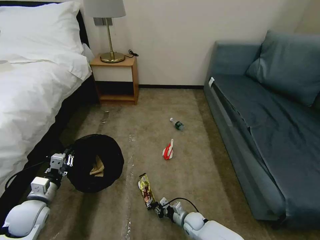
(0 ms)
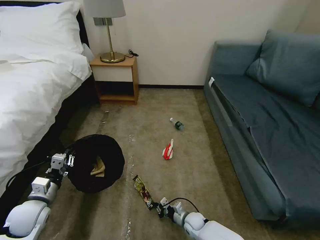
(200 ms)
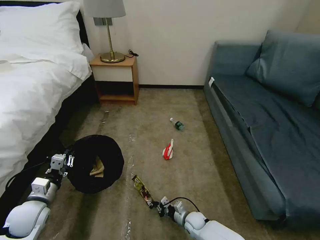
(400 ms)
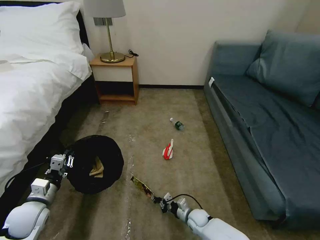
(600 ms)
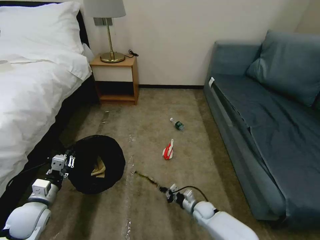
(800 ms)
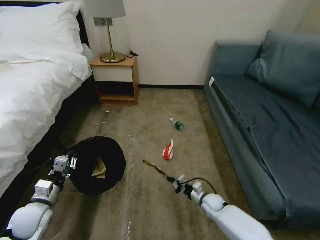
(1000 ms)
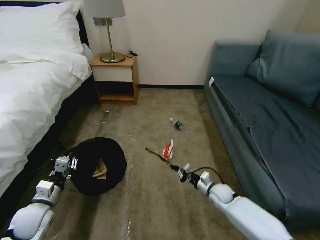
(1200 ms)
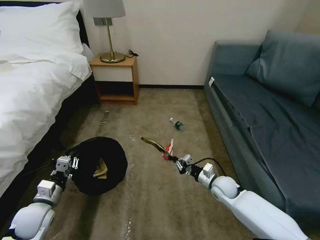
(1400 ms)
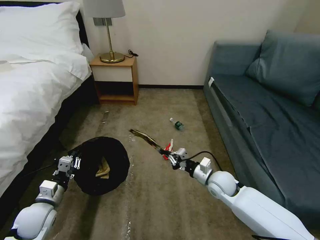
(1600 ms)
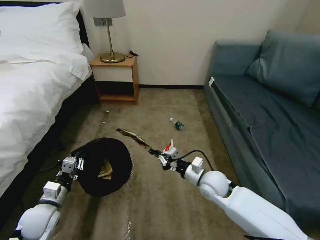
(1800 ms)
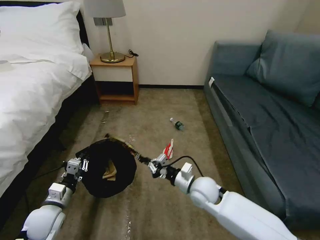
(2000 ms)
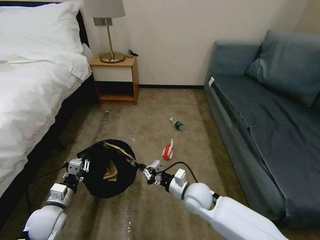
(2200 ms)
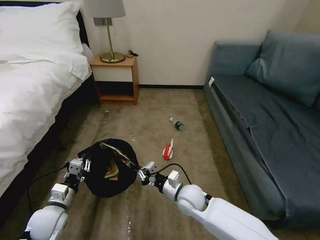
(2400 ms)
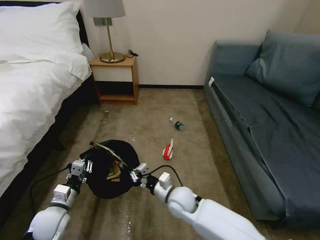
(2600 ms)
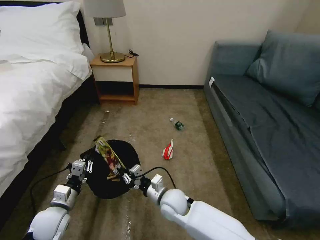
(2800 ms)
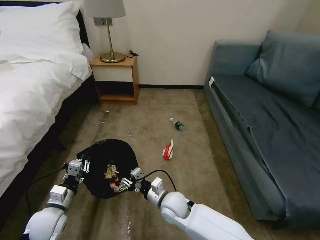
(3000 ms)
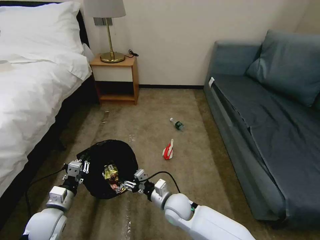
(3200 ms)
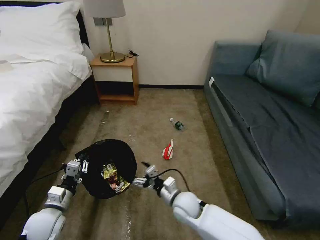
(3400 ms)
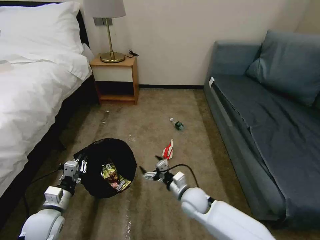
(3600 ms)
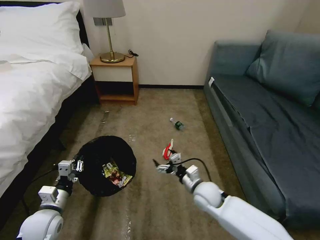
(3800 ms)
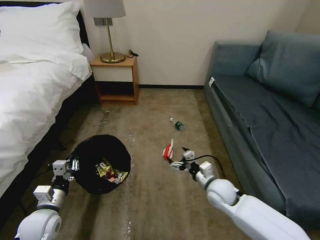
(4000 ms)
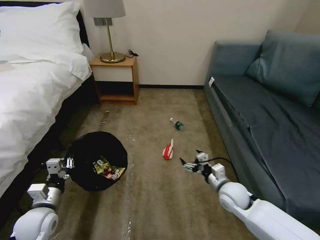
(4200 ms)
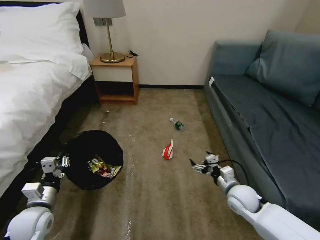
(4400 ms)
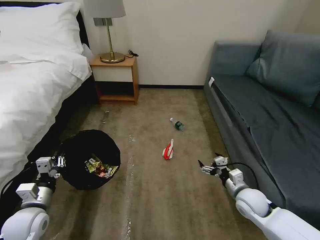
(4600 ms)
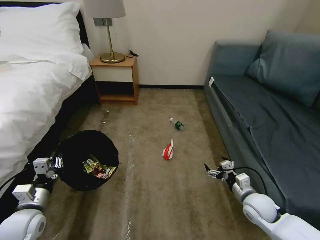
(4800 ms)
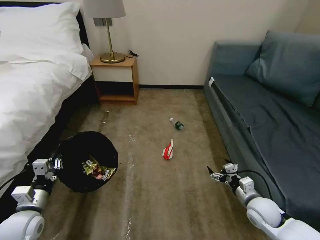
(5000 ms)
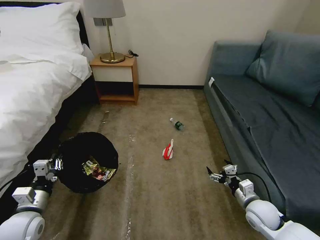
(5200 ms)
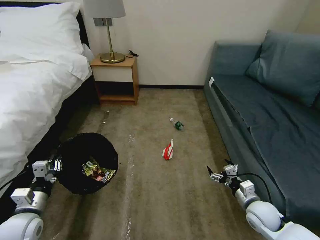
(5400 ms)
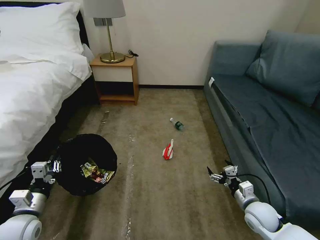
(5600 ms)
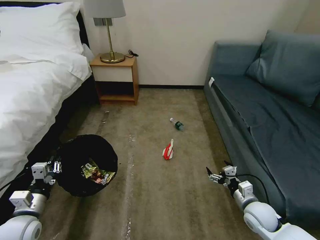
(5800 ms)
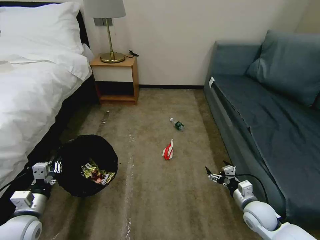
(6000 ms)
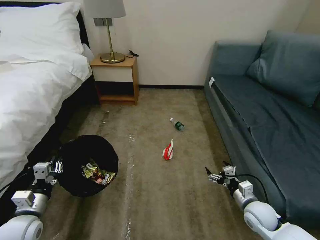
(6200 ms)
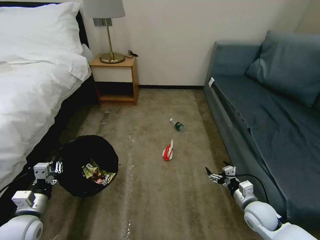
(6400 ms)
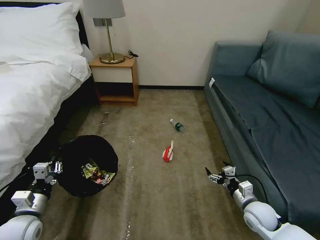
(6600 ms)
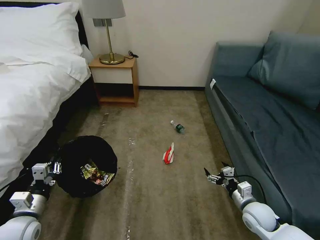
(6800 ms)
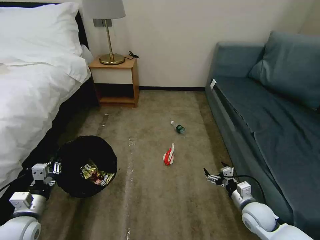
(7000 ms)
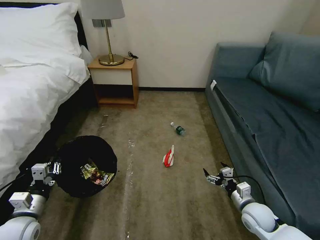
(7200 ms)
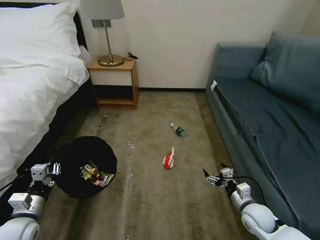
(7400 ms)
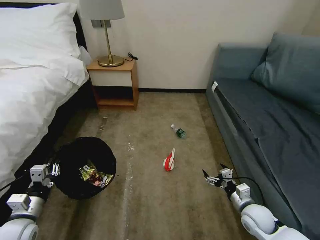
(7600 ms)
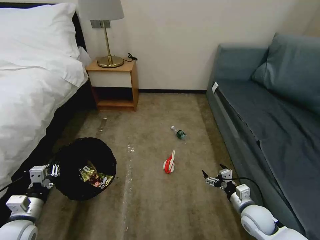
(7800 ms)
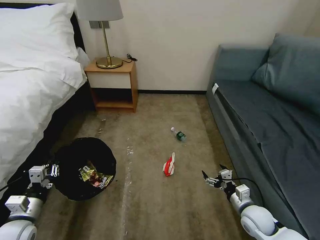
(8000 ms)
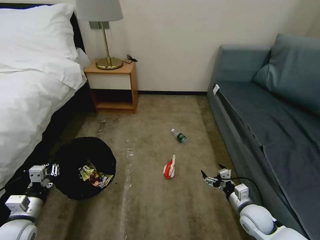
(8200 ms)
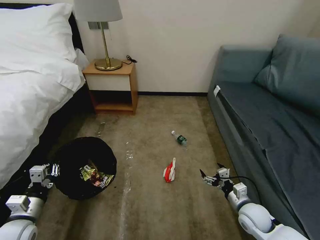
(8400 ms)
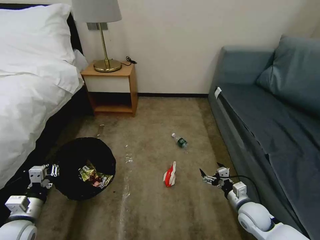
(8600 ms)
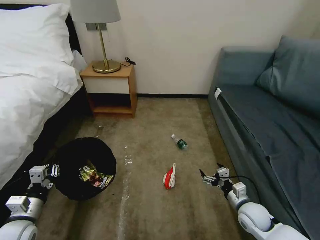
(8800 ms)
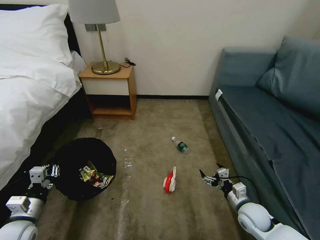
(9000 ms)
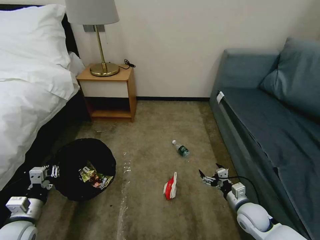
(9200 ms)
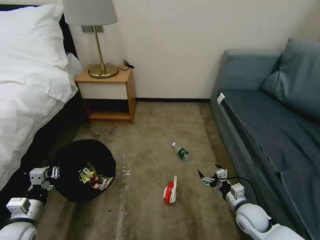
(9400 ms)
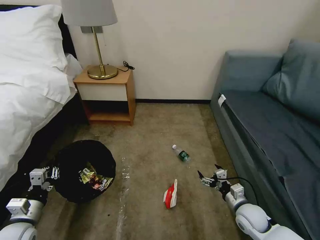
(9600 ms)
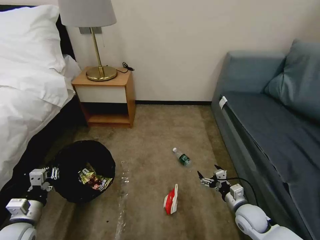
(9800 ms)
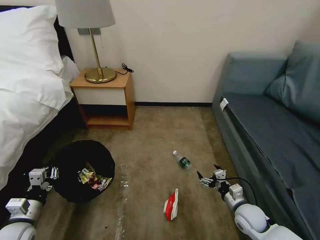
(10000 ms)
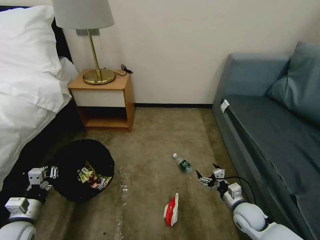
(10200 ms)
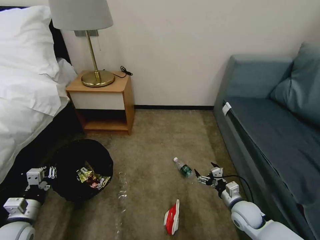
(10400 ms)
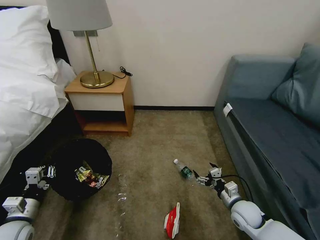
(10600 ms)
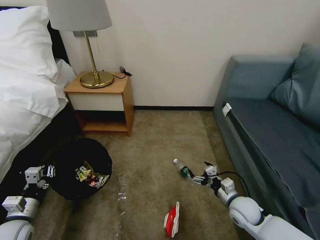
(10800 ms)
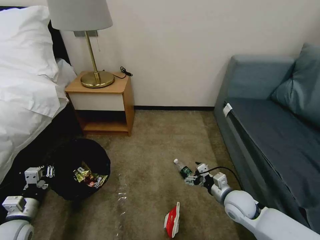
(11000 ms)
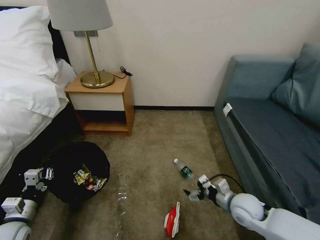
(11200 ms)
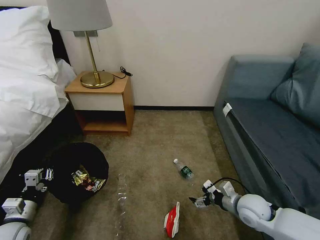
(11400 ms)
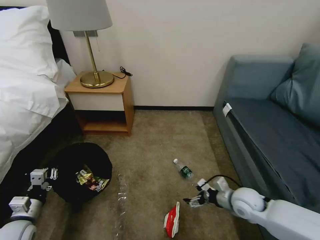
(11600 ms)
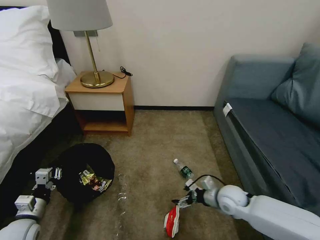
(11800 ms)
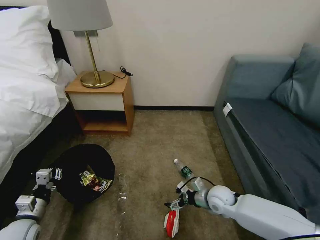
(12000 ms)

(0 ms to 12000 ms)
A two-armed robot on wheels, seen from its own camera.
Task of the whole recording: Pick up the trash bin, then pick up the garbage on the floor and place it into the trash bin.
0 ms - 1600 ms: The right gripper shifts about 25 cm upward.
1600 ms - 3000 ms: The right gripper travels to the left by approximately 15 cm, and opens its fingers.
3000 ms - 4400 ms: The right gripper goes roughly 25 cm to the right, and opens.
4400 ms - 6000 ms: The right gripper is displaced to the right by roughly 5 cm.
6000 ms - 7600 ms: The two grippers keep their place.
7600 ms - 9000 ms: Neither gripper changes place.
10400 ms - 12000 ms: The right gripper goes left and right, some 10 cm each way, reversing 2 times.

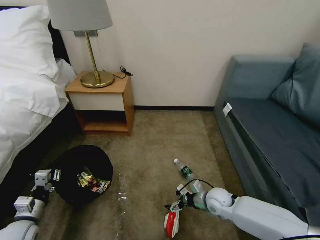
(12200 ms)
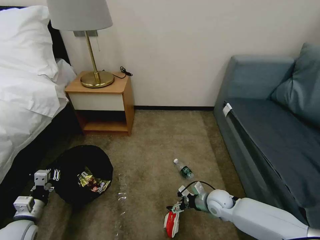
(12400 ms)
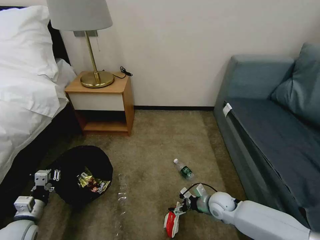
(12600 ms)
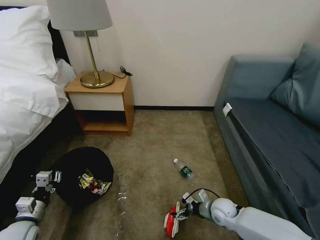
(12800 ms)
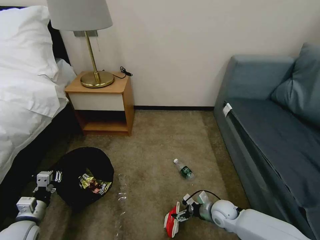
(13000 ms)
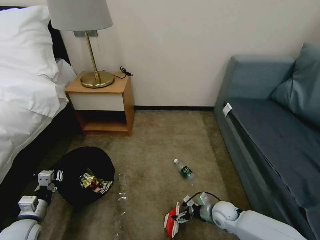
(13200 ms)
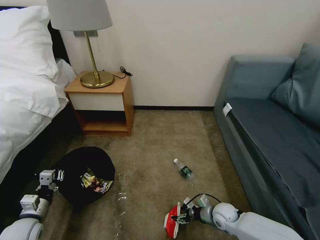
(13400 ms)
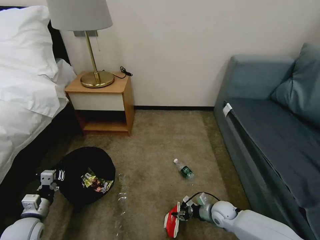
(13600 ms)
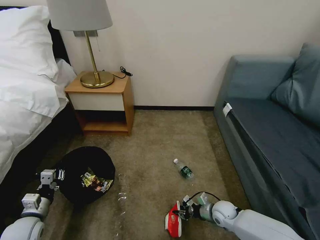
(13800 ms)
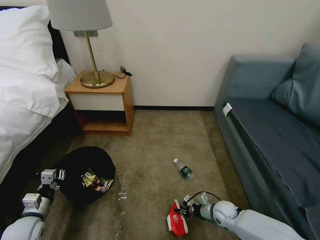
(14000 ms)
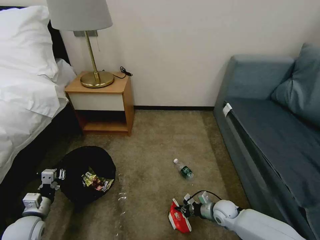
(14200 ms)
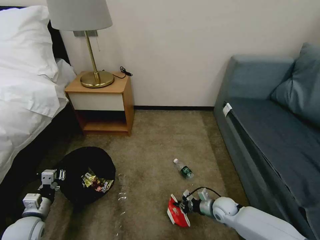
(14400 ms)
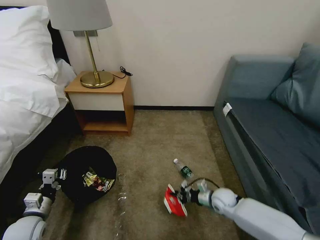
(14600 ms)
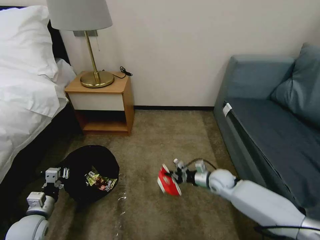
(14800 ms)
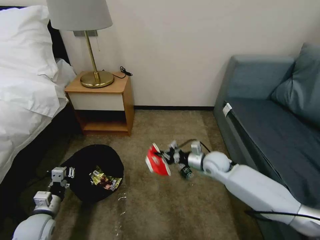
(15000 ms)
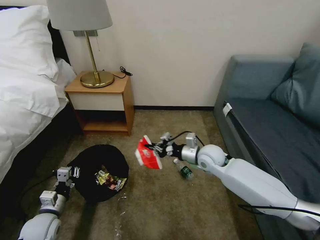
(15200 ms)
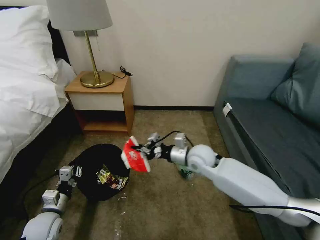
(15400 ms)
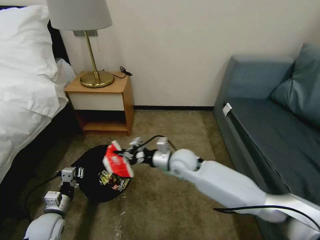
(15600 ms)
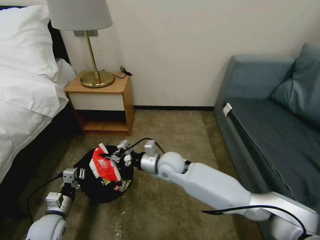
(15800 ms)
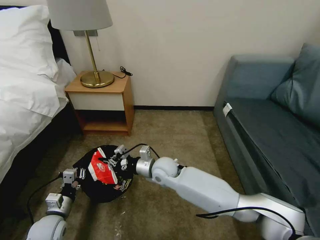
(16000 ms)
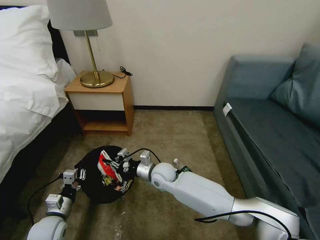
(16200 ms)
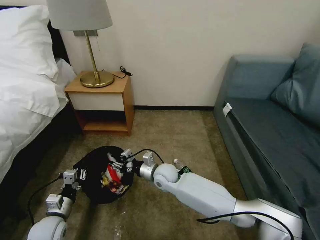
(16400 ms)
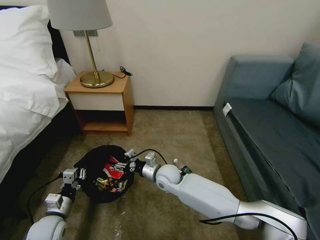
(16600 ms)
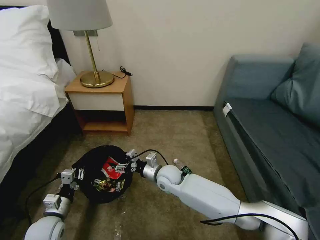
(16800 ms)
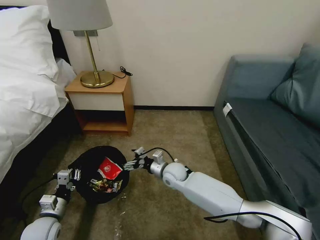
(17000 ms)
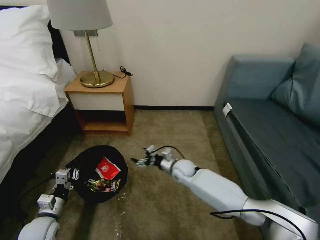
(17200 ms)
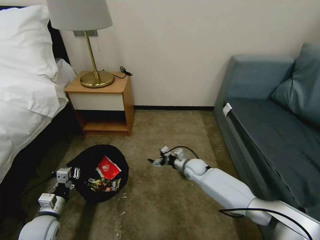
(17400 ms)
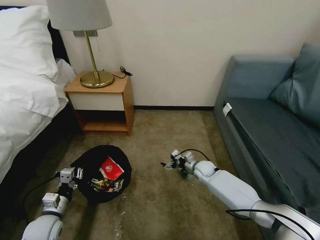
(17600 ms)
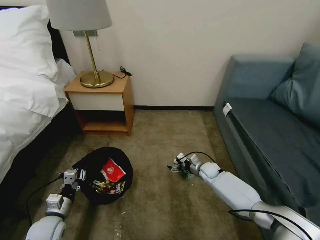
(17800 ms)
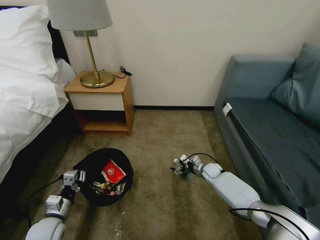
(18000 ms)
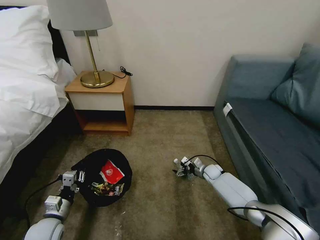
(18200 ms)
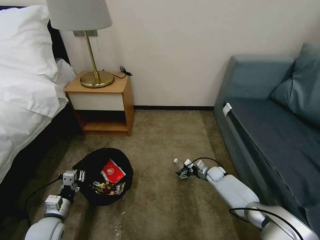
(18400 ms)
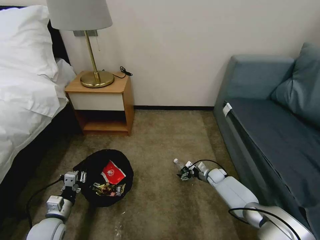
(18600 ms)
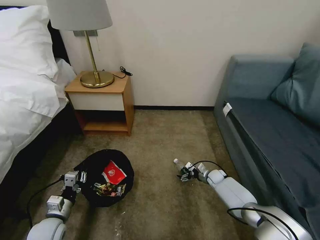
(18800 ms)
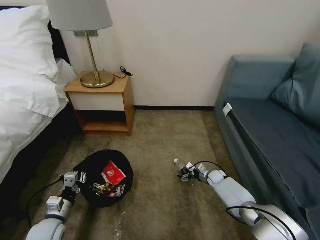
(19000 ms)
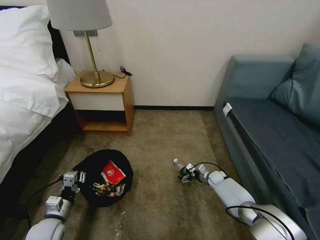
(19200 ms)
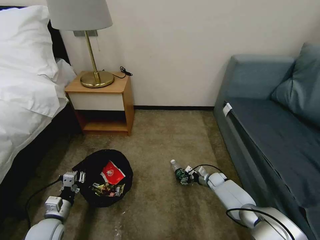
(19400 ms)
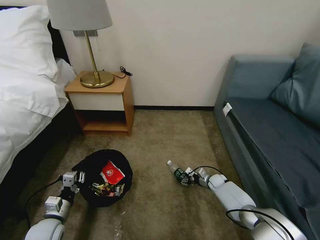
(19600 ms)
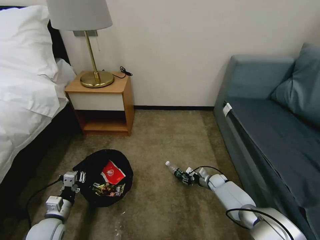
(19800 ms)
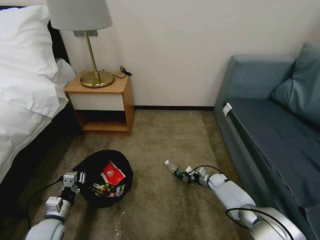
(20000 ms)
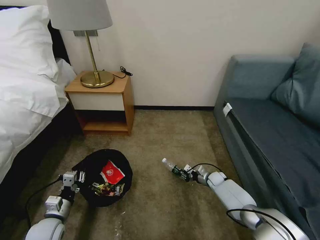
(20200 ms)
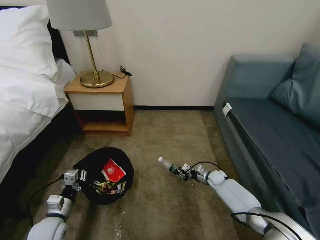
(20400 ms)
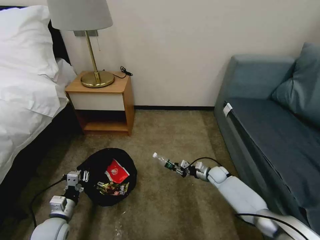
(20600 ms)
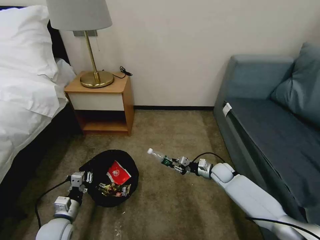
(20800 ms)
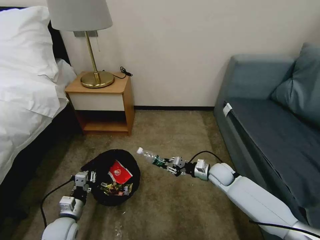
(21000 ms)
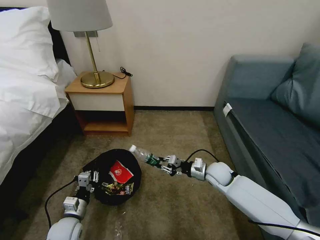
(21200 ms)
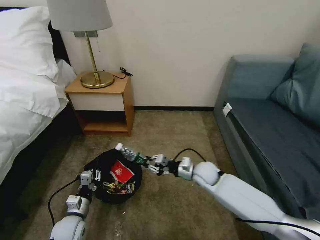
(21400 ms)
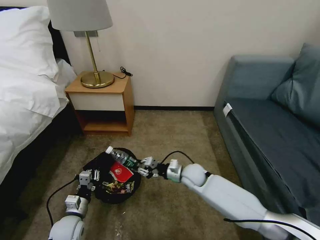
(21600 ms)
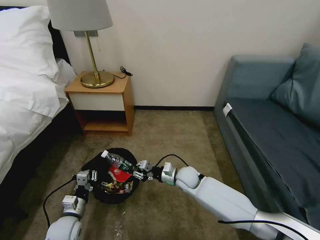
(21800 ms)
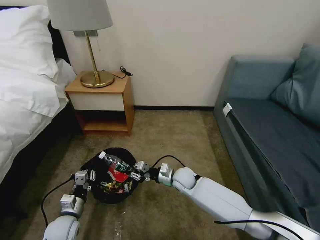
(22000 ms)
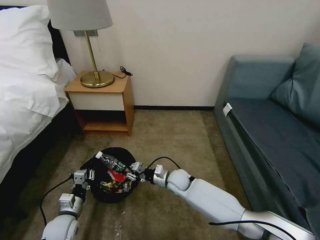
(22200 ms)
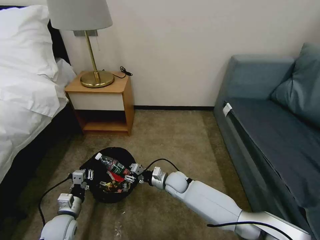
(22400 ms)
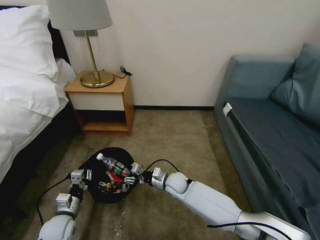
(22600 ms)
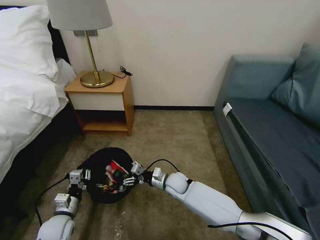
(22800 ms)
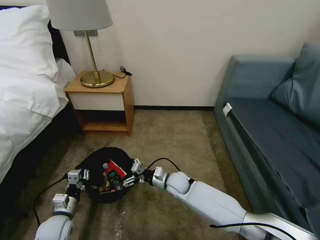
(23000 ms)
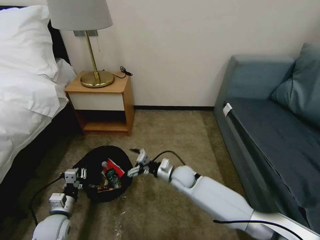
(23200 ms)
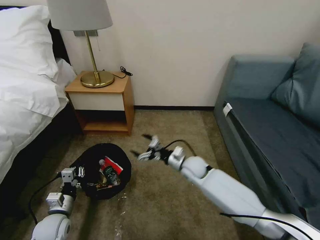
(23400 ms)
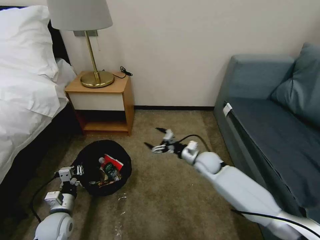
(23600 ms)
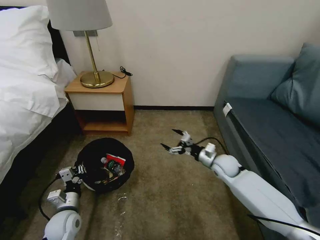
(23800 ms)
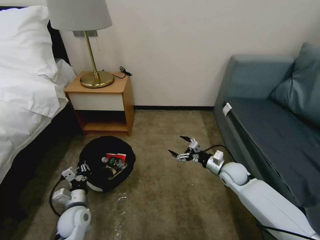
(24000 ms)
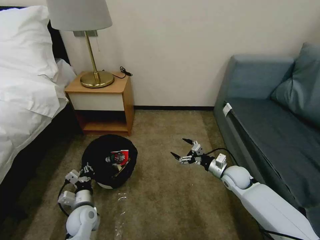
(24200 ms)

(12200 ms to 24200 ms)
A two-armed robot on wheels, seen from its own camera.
Task of the whole recording: Pick up the trash bin, then pick up the garbage on the floor and place it into the trash bin.
12200 ms - 13800 ms: The right gripper goes some 10 cm downward, and closes.
13800 ms - 15200 ms: The right gripper heads upward and forward, covering some 25 cm.
15200 ms - 16600 ms: The right gripper goes about 20 cm to the left and downward, and opens.
16600 ms - 18200 ms: The right gripper shifts about 30 cm to the right and downward, and opens up.
18200 ms - 19800 ms: The right gripper moves about 5 cm, and closes.
19800 ms - 21200 ms: The left gripper ends up roughly 5 cm from where it was, while the right gripper shifts some 20 cm upward and to the left.
21200 ms - 22600 ms: The right gripper shifts roughly 15 cm to the left and downward, and opens.
22600 ms - 24200 ms: The left gripper heads to the right, covering about 5 cm. Meanwhile the right gripper travels to the right by about 25 cm, and opens up.
